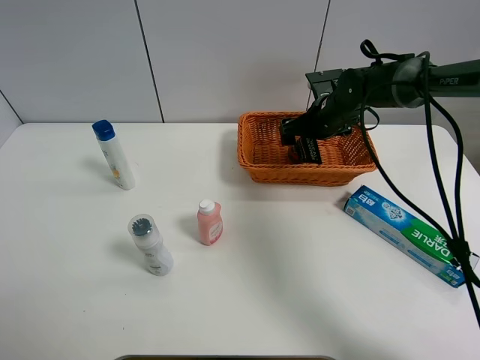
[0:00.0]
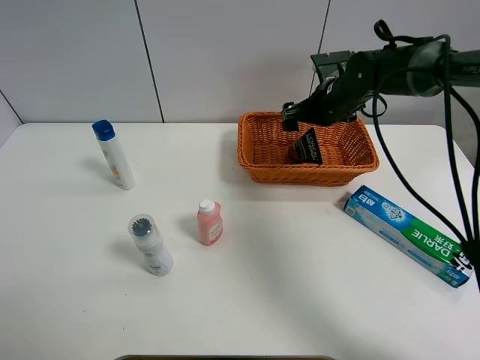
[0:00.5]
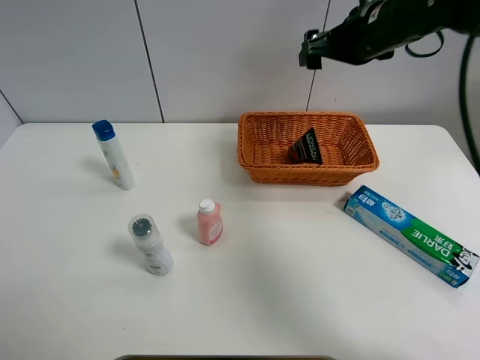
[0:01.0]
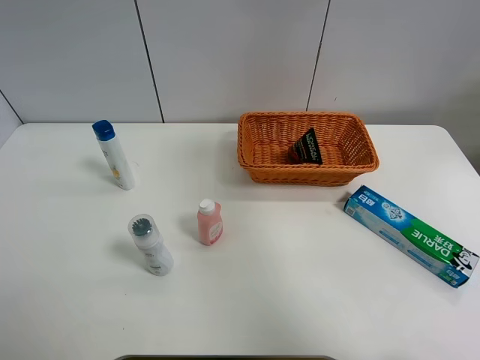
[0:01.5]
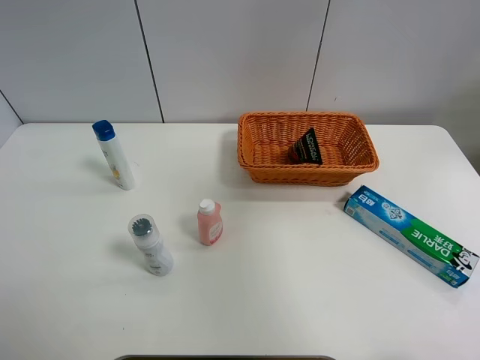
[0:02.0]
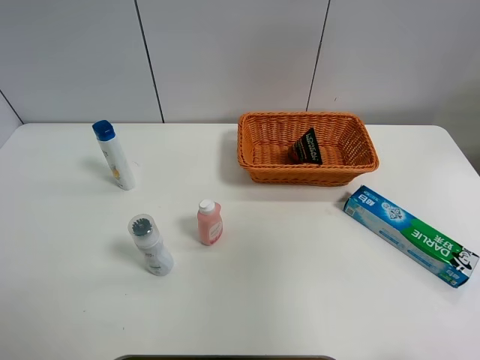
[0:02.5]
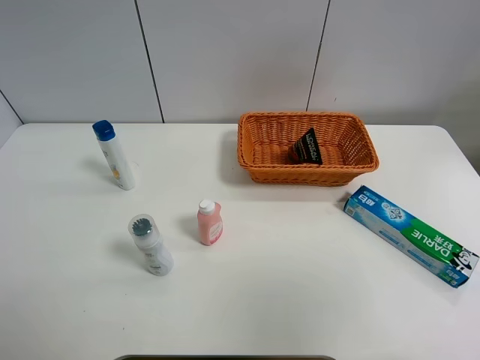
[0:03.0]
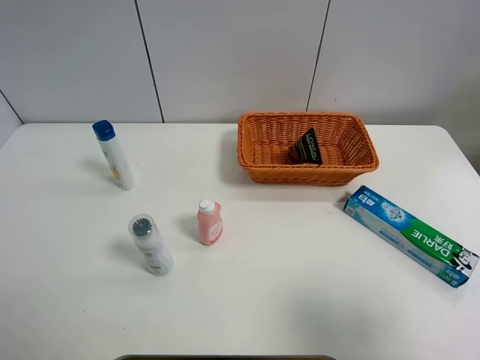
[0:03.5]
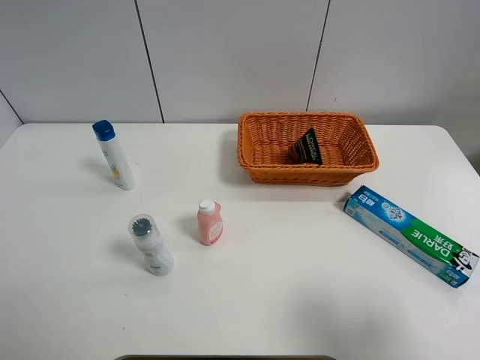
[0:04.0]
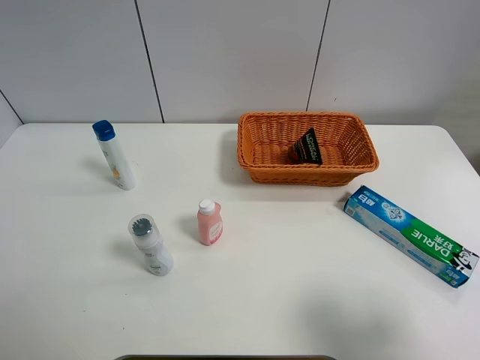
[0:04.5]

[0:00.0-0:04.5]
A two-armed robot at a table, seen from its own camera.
Task of the whole recording: Place the object closest to the toothpaste in the basket.
0:00.0 to 0:02.0: The right gripper travels upward and backward by roughly 40 cm.
0:02.0 to 0:04.5: The right gripper goes about 25 cm downward and backward.
